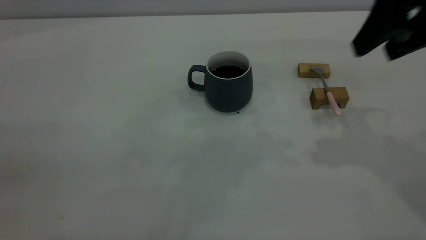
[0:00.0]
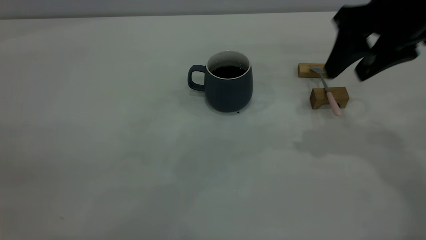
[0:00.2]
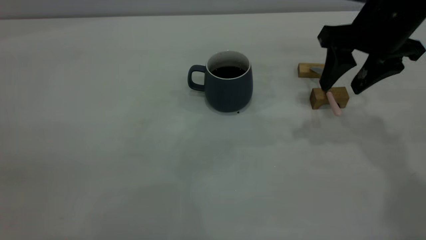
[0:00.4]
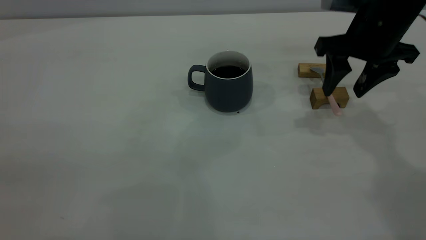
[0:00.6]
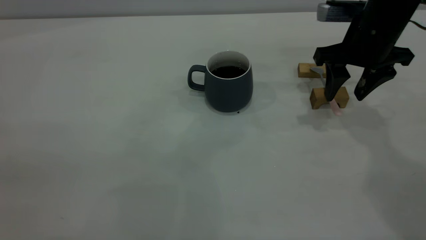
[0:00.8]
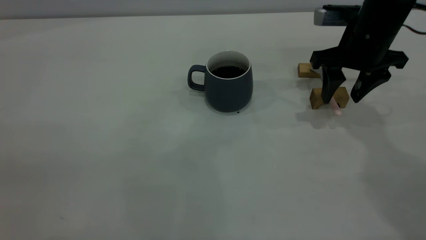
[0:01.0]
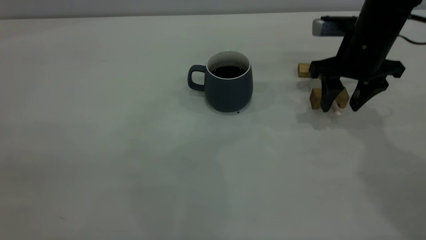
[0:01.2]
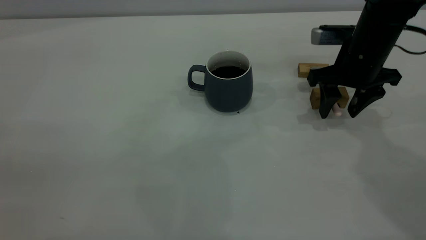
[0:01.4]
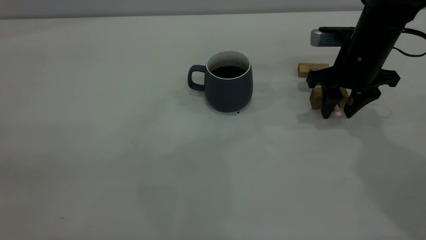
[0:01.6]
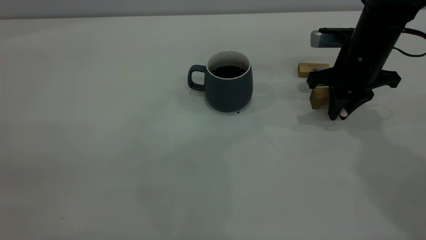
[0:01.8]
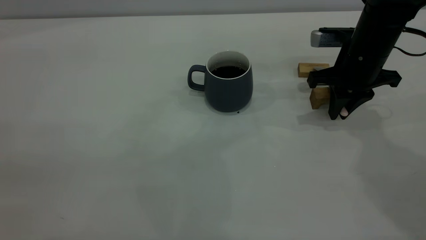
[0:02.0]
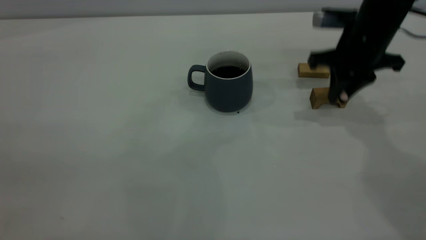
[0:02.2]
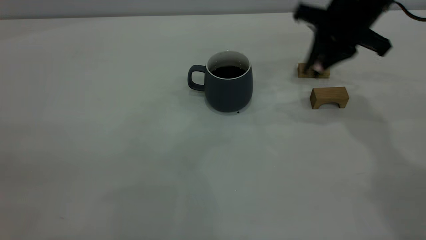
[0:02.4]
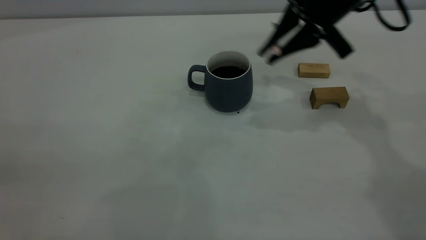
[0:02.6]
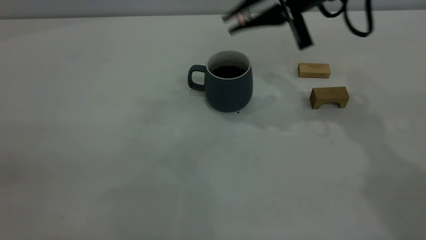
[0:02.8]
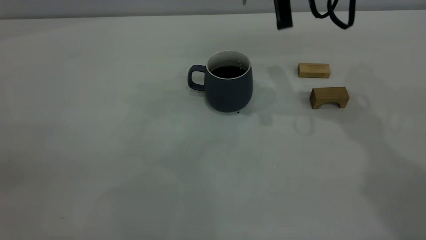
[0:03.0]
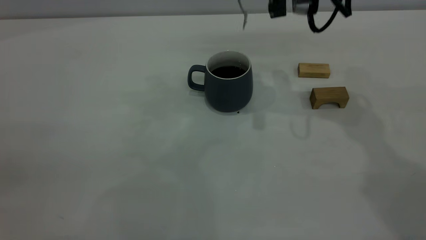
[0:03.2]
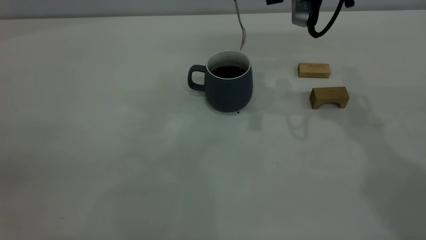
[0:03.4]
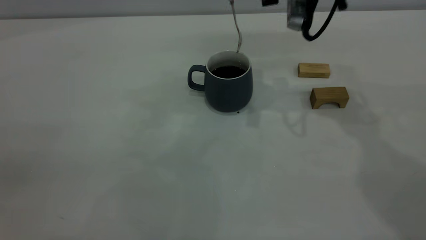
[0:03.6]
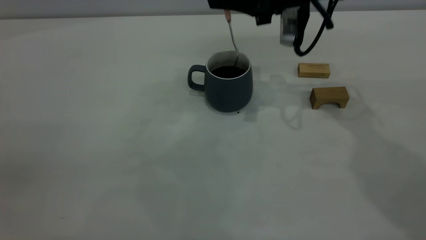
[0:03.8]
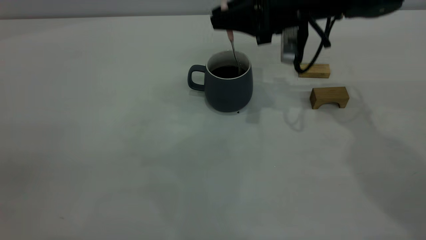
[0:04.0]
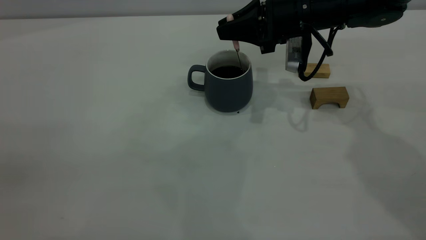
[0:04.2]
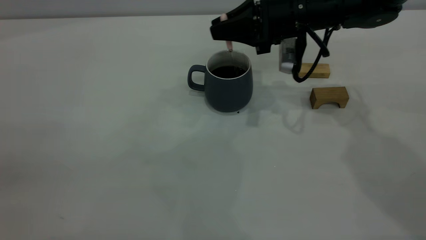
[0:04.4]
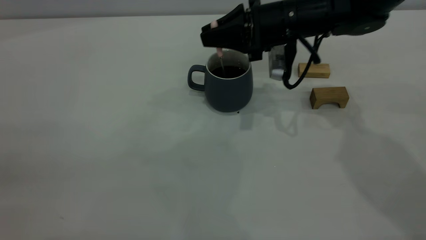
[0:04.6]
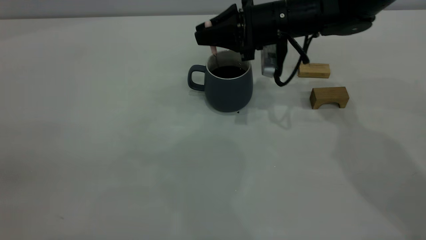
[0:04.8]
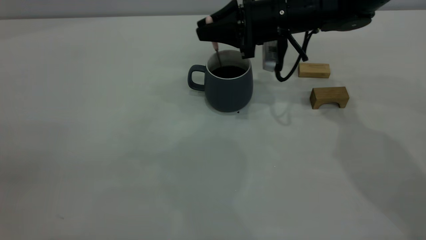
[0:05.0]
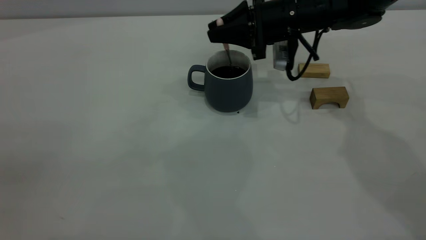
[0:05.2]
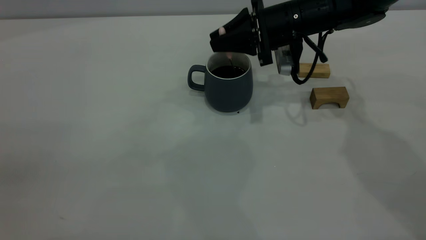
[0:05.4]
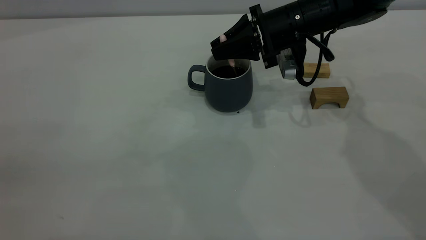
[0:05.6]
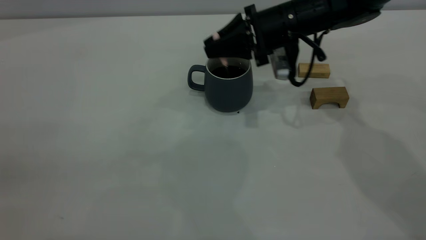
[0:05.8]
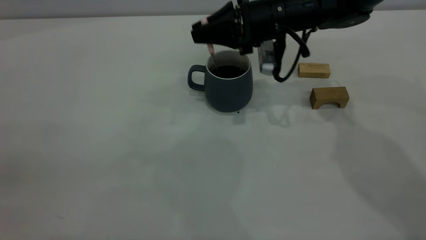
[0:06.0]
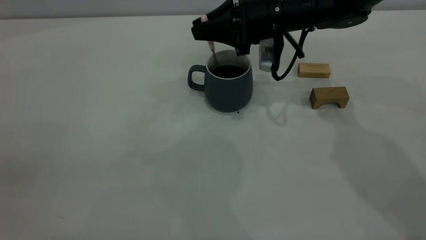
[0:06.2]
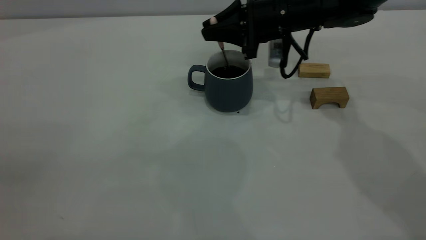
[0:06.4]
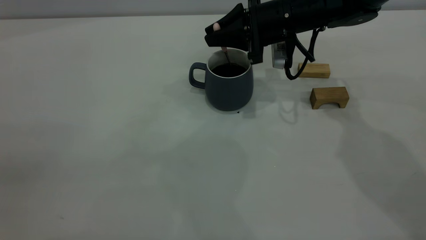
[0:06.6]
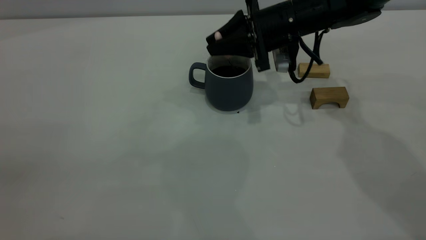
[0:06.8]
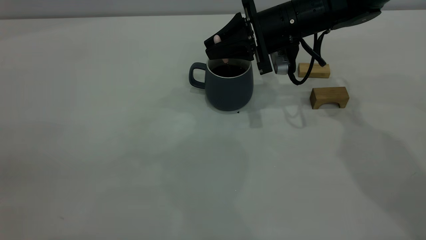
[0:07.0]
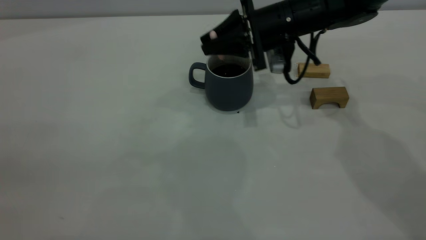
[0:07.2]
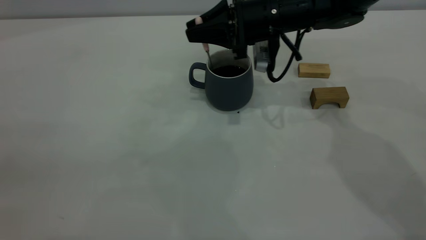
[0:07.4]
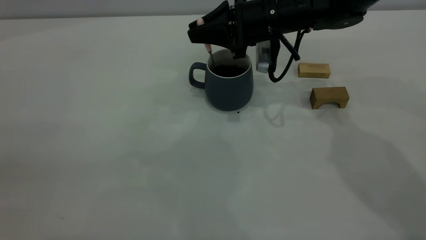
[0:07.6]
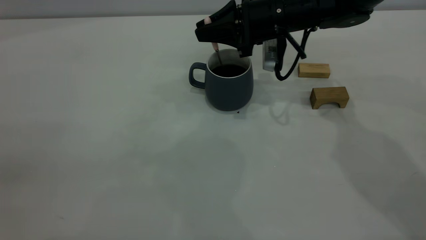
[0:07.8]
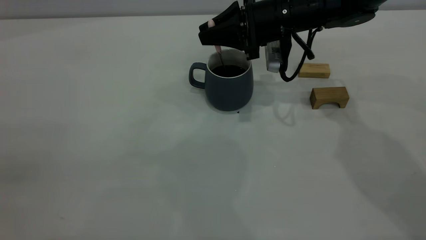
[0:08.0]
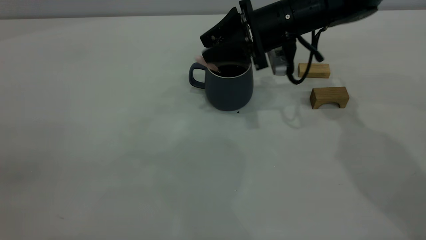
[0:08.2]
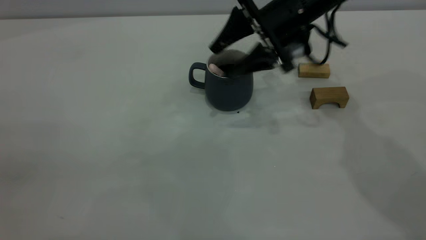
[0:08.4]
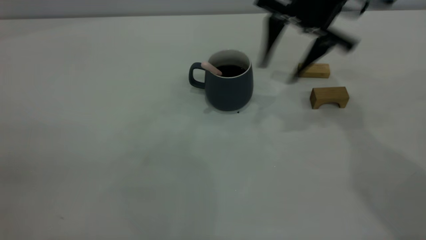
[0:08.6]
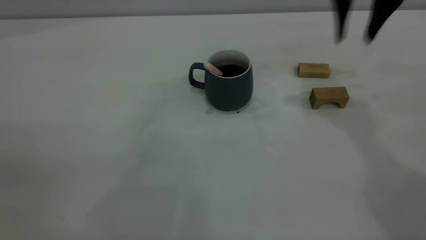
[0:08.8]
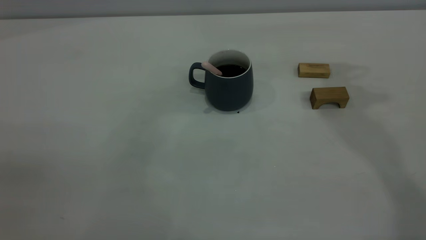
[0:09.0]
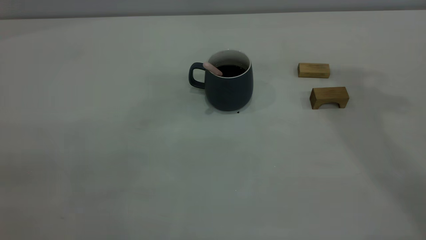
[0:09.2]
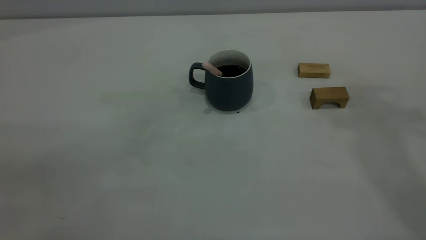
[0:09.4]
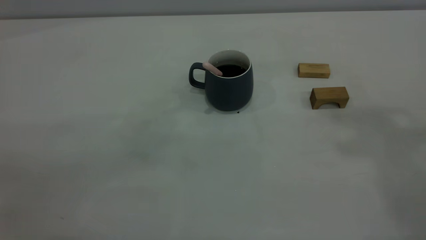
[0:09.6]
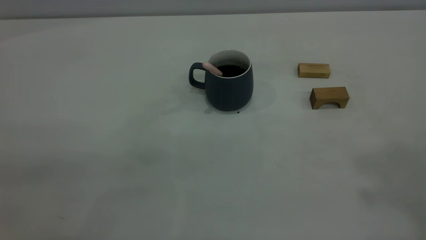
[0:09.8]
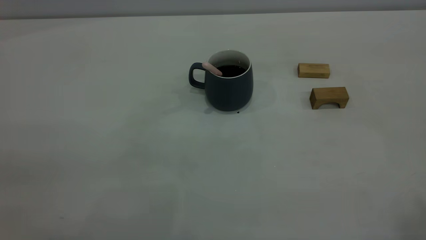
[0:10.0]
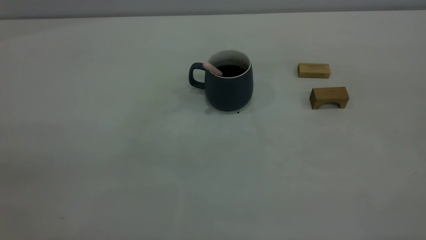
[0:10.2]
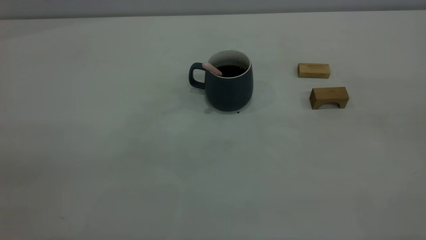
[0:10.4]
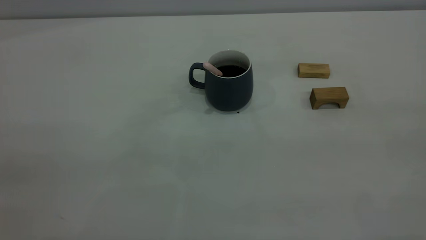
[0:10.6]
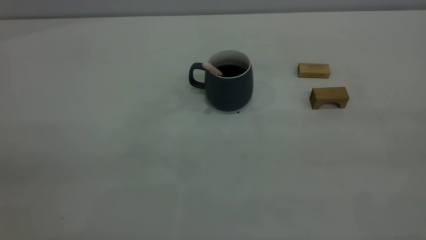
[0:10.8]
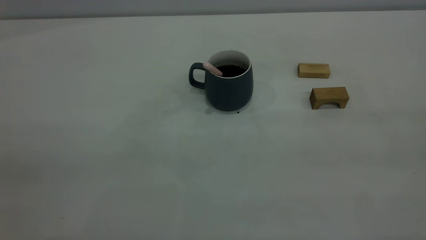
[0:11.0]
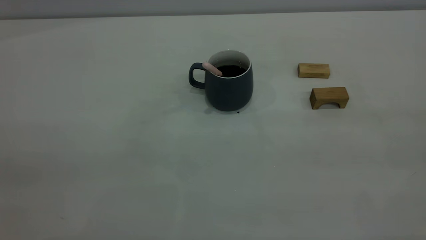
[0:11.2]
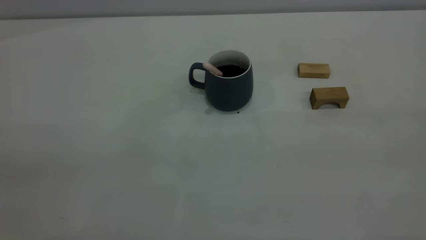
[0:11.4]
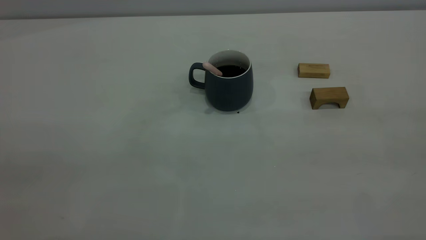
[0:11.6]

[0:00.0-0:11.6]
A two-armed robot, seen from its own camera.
Step, 0:00.0 to 0:02.2: Pick up the spoon.
Step, 0:02.4 to 0:08.4: Stir the coffee in the cup.
0:00.0 to 0:01.4: The right gripper heads downward and forward, covering some 20 cm.
0:01.4 to 0:02.8: The right gripper moves upward and to the left, roughly 15 cm, and closes.
0:02.8 to 0:04.4: The right gripper shifts some 10 cm downward.
0:04.4 to 0:07.2: The grippers make only small movements.
0:07.2 to 0:08.8: The right gripper travels upward and to the right by about 15 cm, and opens up.
0:08.8 to 0:10.2: The right gripper shifts roughly 40 cm backward and upward, and closes its fingers.
